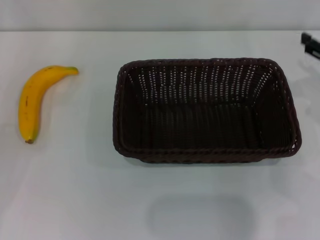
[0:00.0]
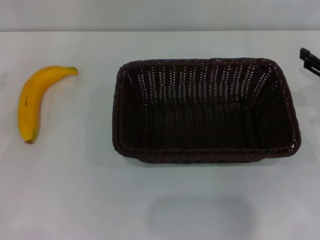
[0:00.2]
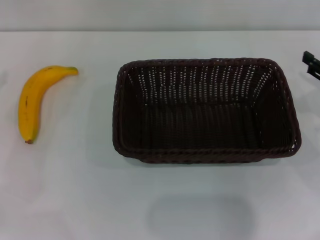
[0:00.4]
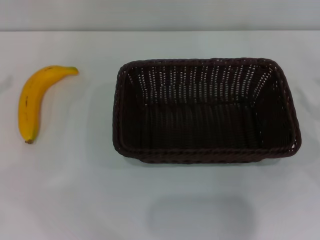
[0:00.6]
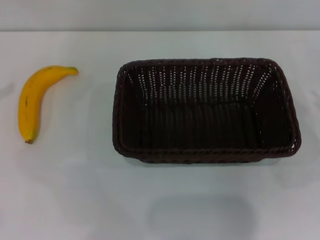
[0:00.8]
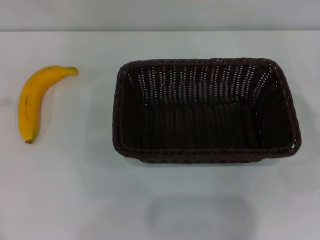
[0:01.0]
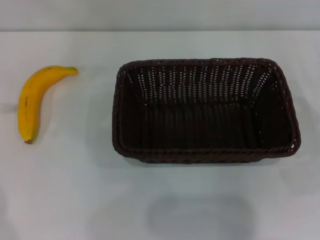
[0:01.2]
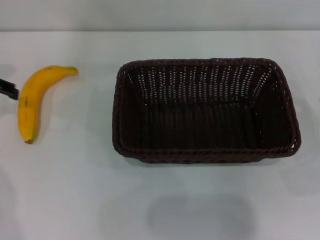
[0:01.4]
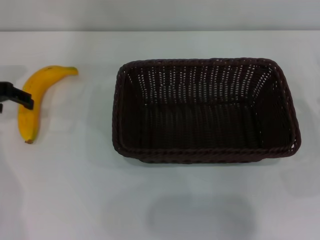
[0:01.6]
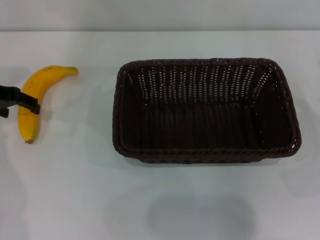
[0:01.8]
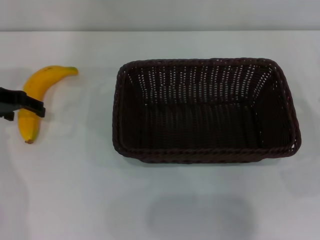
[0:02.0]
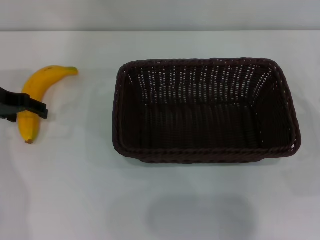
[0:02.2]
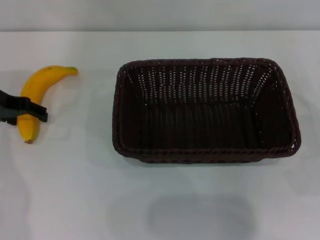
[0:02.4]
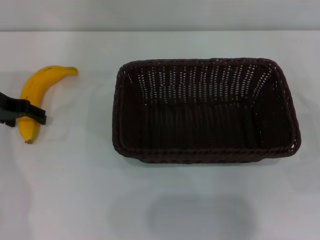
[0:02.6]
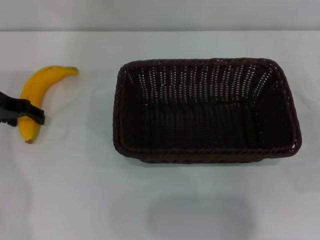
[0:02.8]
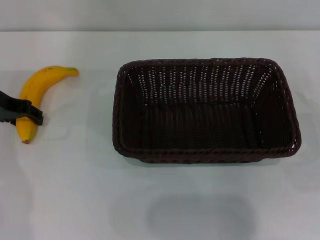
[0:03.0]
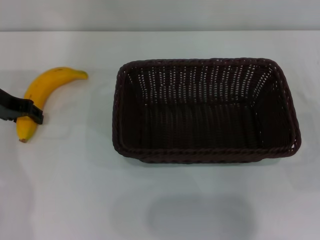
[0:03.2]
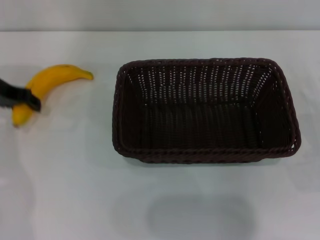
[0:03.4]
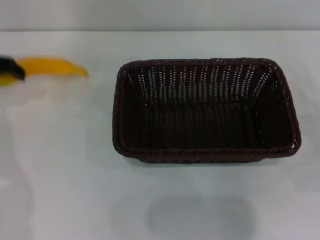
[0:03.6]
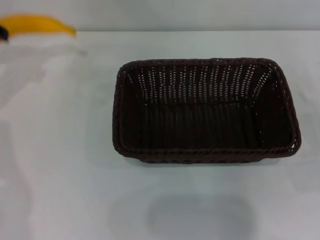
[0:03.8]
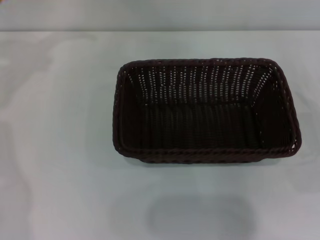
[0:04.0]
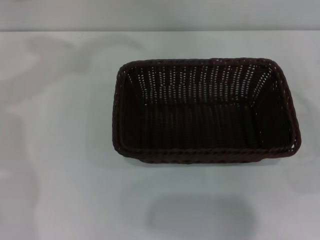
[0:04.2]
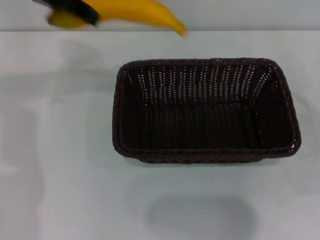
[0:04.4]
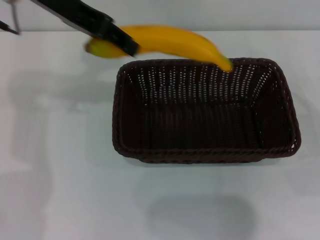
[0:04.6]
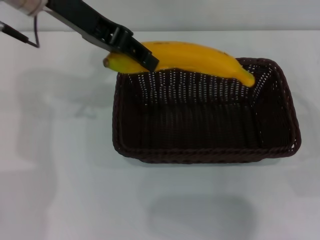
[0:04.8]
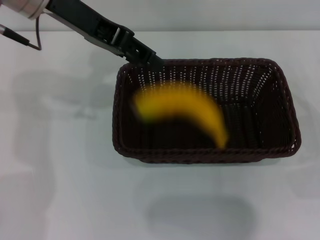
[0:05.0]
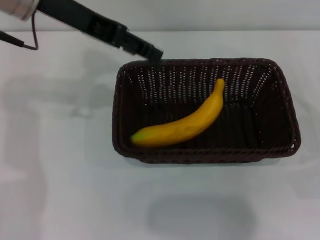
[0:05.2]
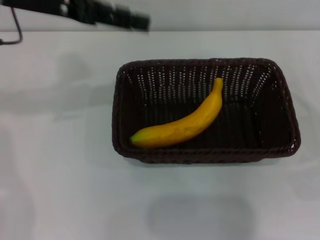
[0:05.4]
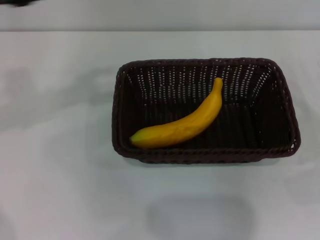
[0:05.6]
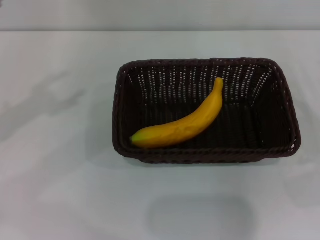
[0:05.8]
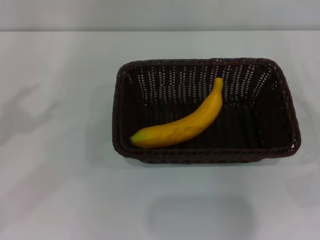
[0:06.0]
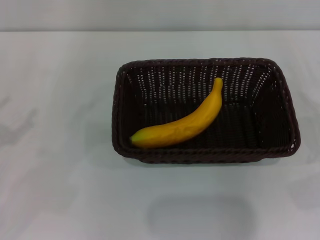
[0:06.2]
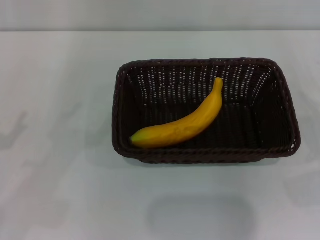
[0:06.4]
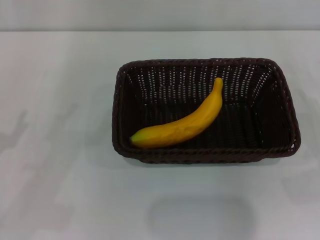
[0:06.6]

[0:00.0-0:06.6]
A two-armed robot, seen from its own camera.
Step, 0:00.0 to 0:03.6: Pick up the banana with the left gripper.
Step, 0:03.8 to 0:05.0: Place the banana into the dark basket with the left gripper.
0:00.0 to 0:01.6: The right gripper goes about 15 cm backward, downward and to the right; the left gripper shifts some 15 cm forward and to the right.
0:01.6 to 0:03.2: The left gripper closes up.
0:03.2 to 0:05.0: The left gripper goes roughly 20 cm upward and to the right.
0:05.0 to 0:06.6: The left gripper goes some 35 cm downward, backward and to the left, and opens.
